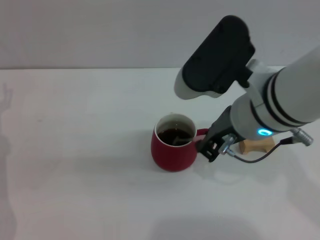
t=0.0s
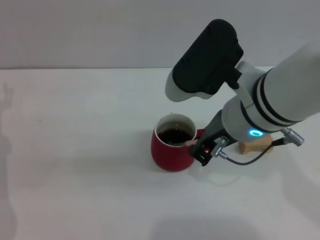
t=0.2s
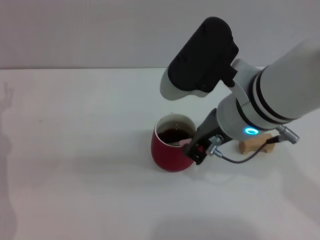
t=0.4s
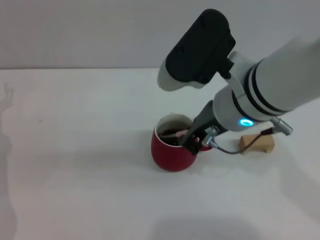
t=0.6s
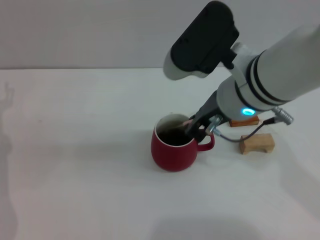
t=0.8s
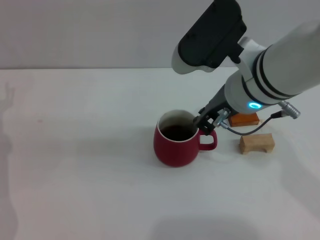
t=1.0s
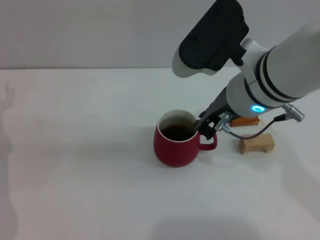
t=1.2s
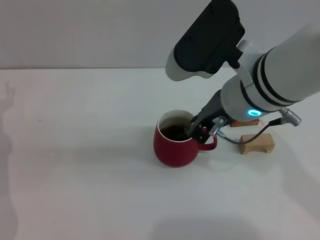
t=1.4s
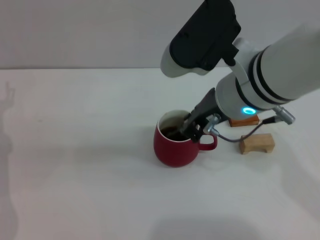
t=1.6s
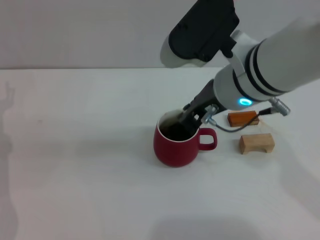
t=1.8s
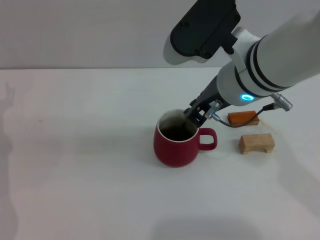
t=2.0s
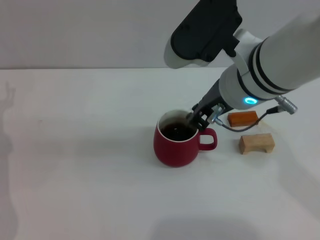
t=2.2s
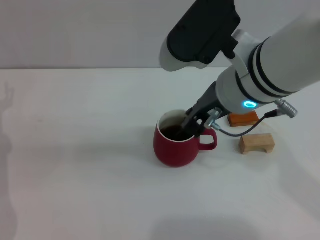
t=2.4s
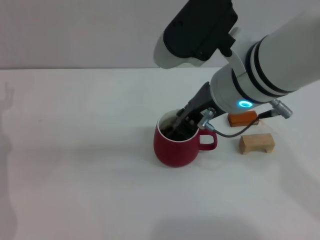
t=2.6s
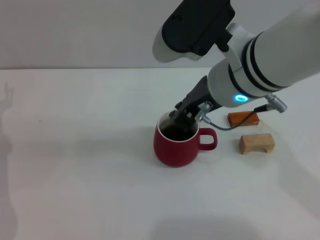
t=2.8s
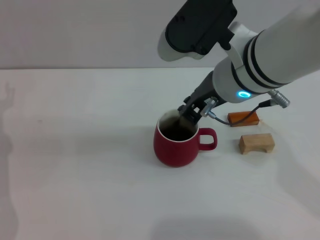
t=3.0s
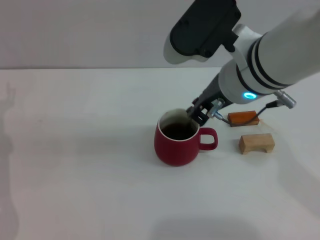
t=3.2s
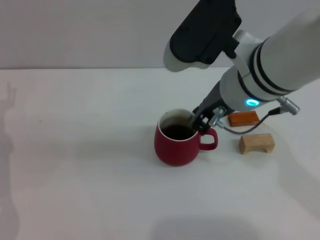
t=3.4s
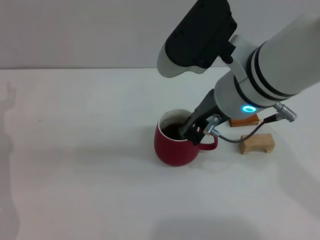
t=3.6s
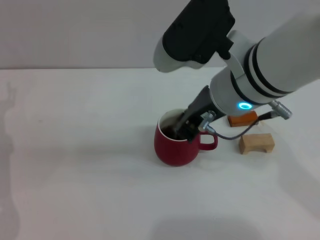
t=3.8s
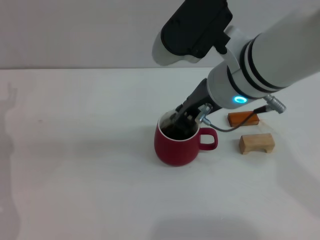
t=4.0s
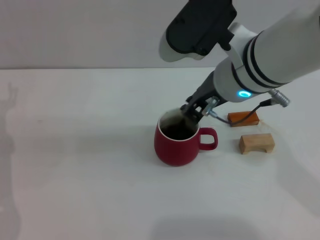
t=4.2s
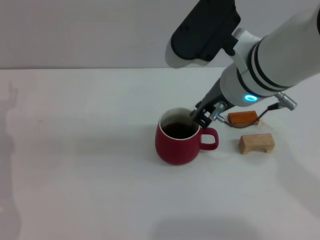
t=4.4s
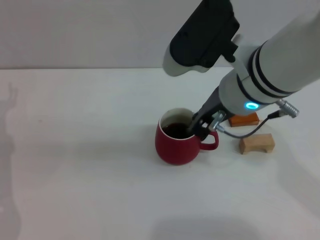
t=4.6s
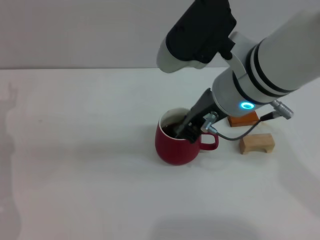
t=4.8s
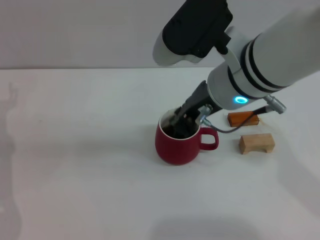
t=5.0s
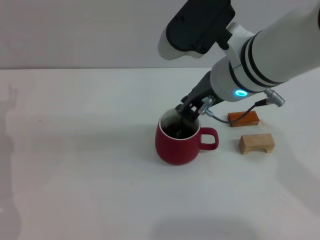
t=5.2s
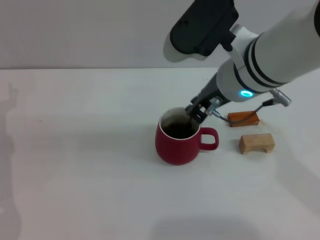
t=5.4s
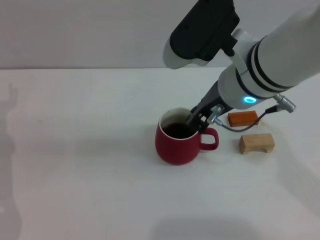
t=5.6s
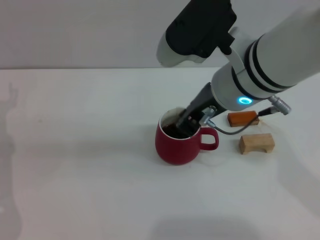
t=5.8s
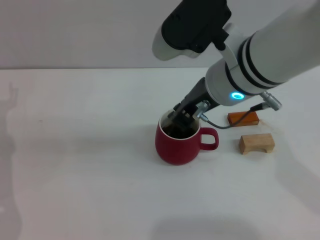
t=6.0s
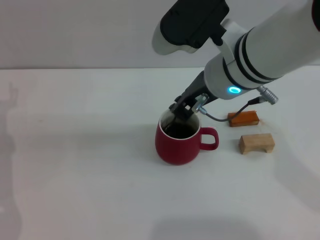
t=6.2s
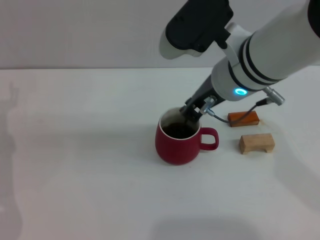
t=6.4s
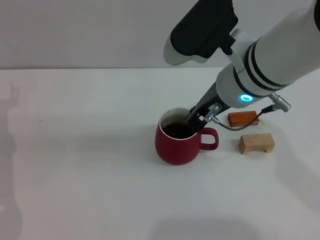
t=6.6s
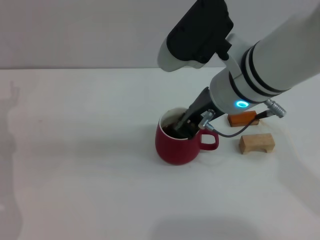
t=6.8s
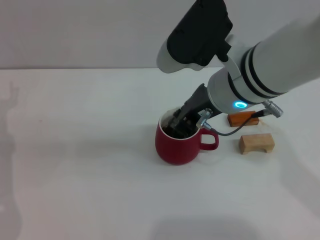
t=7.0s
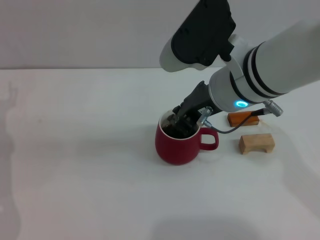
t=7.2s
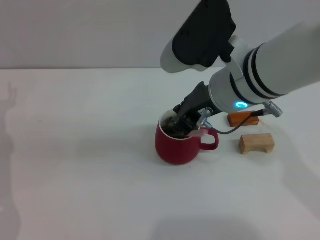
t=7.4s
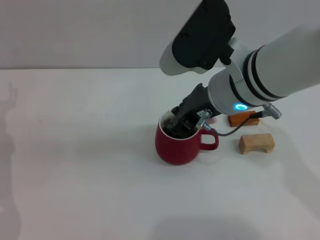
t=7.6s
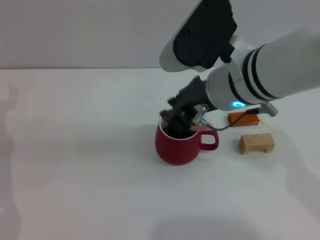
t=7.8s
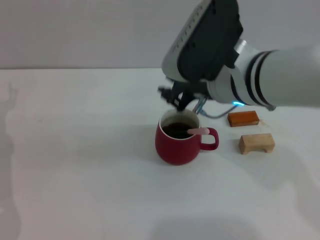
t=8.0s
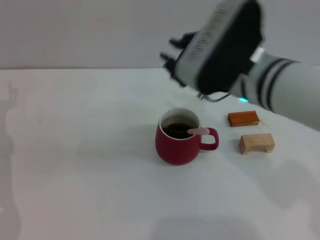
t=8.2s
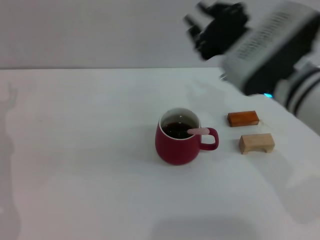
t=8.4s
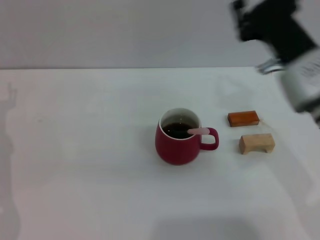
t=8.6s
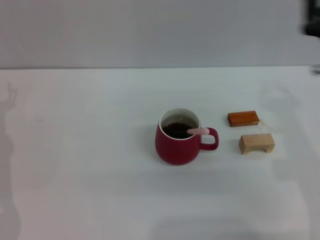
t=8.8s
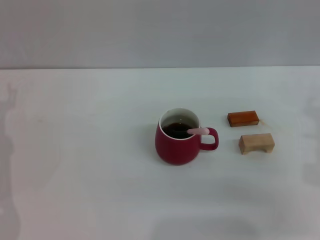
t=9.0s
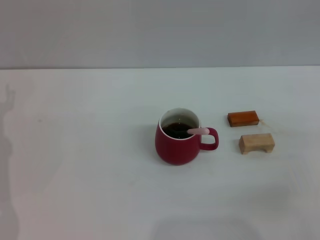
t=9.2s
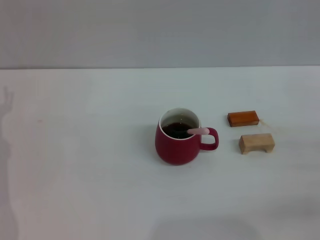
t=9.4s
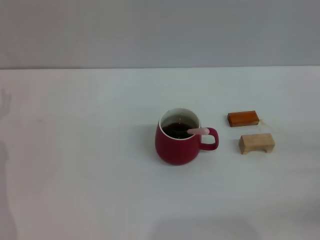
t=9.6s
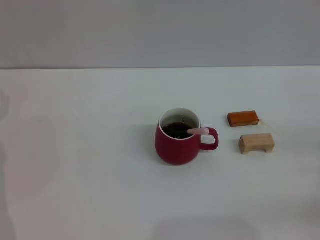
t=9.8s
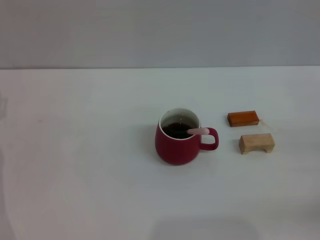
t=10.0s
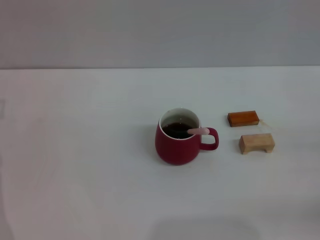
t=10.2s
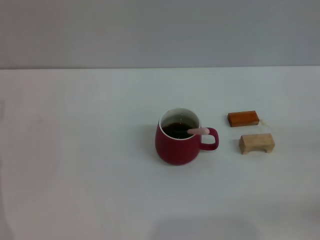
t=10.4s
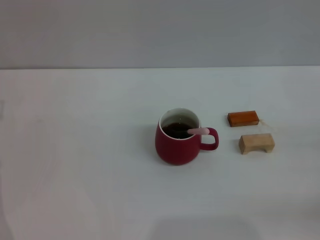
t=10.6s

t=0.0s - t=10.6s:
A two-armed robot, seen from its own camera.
Task of the whole recording: Move the red cup to the center, lift the pink spoon, stir it three times in the cup, and put the spoon into the cup.
Step, t=0.0s - t=8.2s: Stir the coffee in the cup with the right gripper.
t=0.0s - t=7.6s: The grippers make only small movements.
t=7.6s - t=9.0s: The right gripper heads to the right and downward, covering approximately 20 cm.
t=9.0s - t=10.6s: The right gripper goes some 15 cm to the right and downward, and opens.

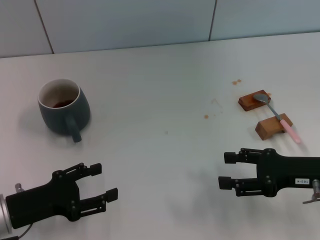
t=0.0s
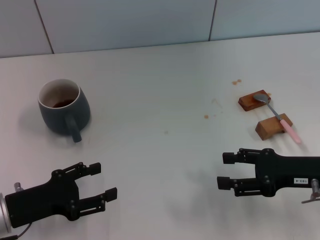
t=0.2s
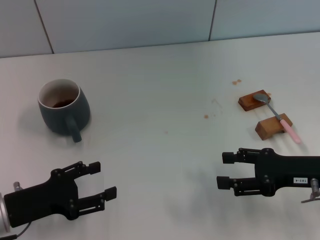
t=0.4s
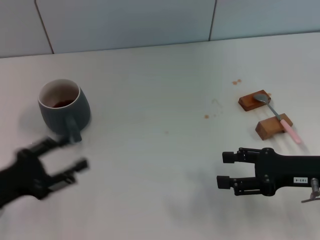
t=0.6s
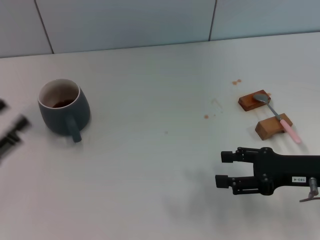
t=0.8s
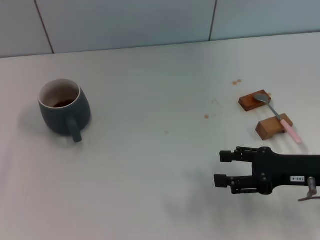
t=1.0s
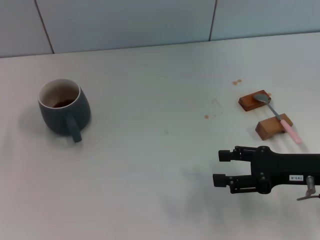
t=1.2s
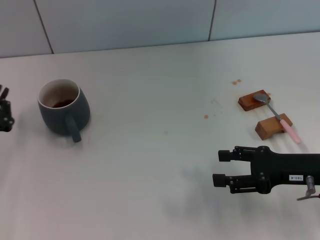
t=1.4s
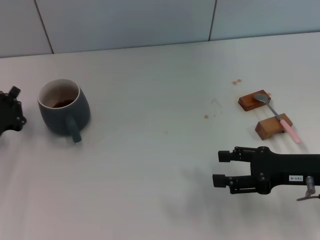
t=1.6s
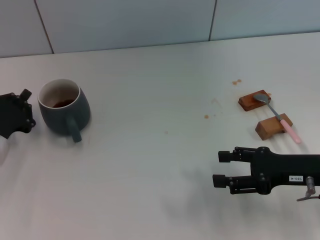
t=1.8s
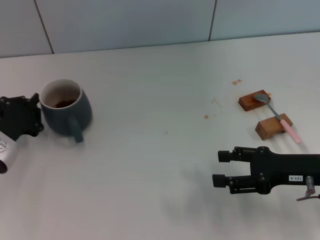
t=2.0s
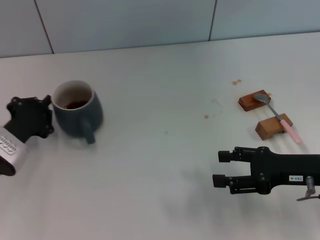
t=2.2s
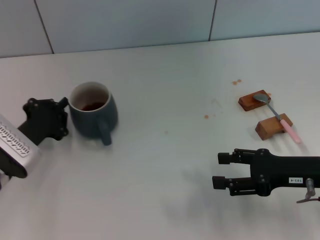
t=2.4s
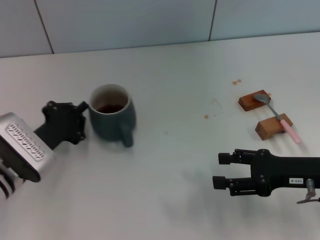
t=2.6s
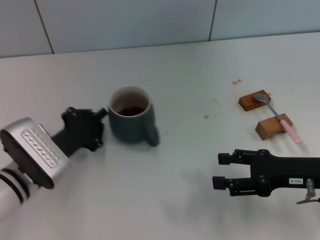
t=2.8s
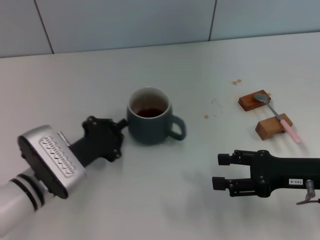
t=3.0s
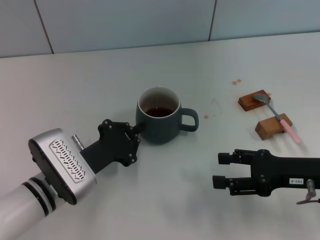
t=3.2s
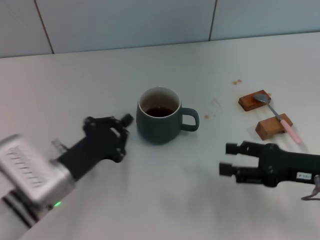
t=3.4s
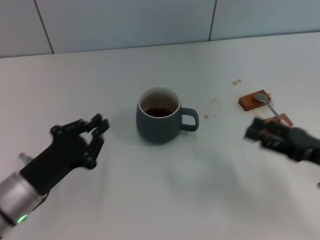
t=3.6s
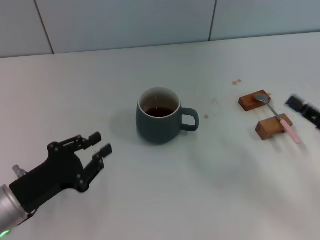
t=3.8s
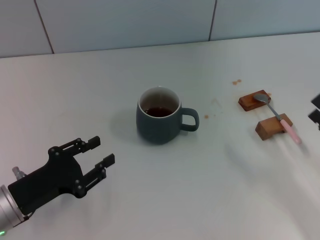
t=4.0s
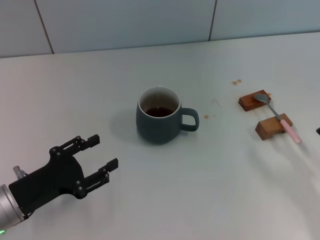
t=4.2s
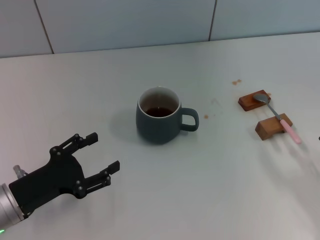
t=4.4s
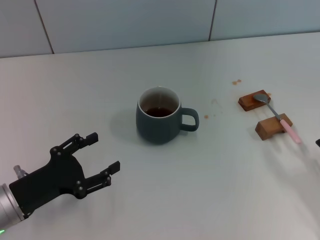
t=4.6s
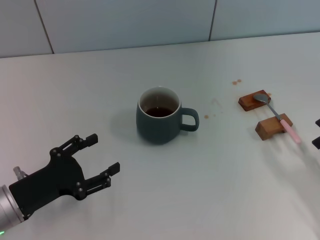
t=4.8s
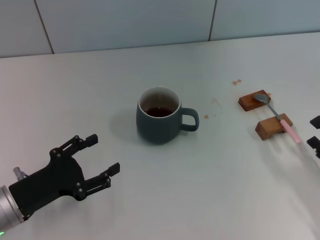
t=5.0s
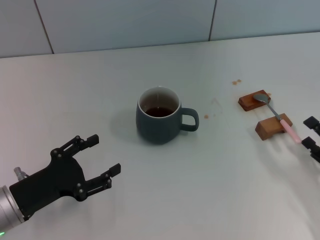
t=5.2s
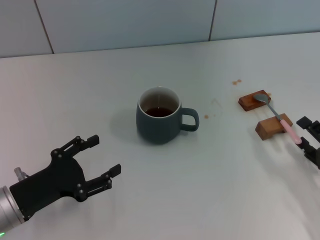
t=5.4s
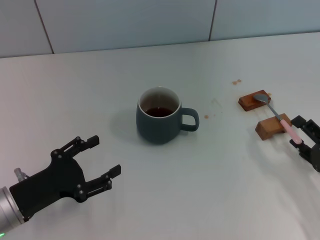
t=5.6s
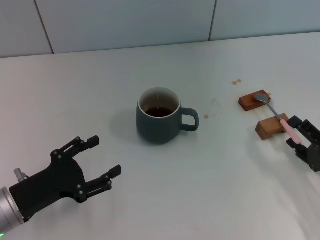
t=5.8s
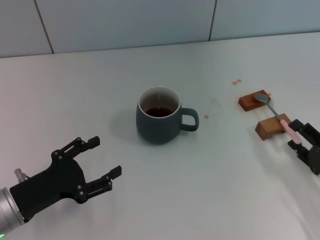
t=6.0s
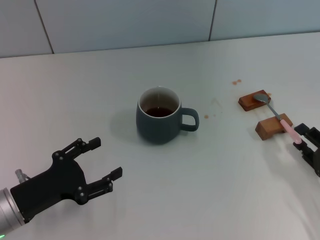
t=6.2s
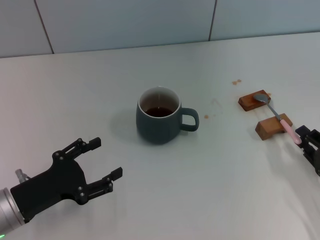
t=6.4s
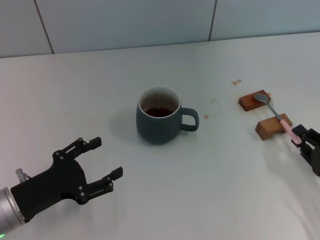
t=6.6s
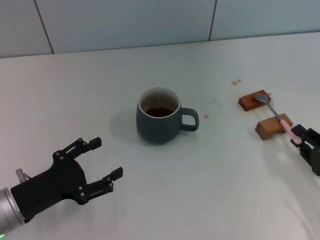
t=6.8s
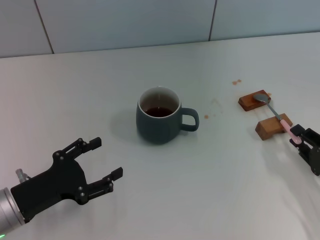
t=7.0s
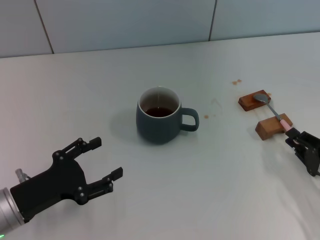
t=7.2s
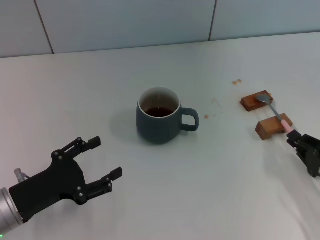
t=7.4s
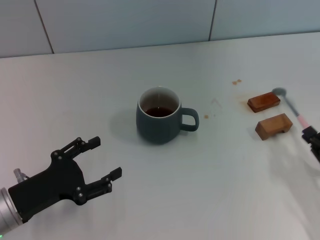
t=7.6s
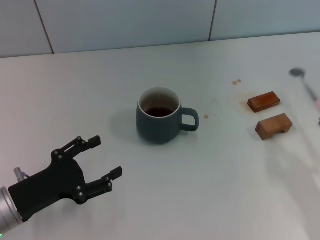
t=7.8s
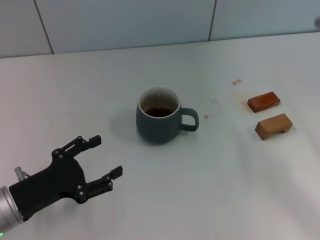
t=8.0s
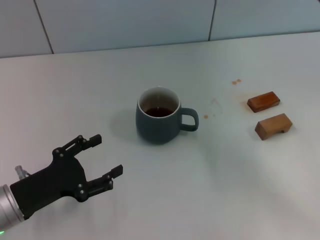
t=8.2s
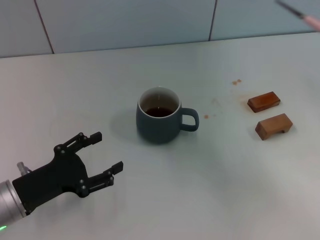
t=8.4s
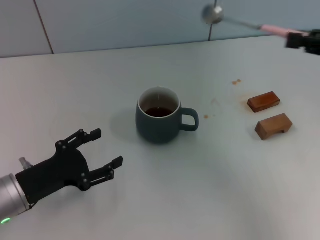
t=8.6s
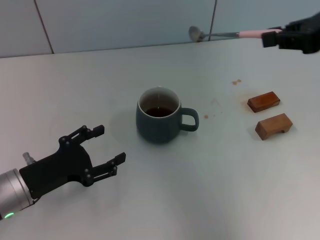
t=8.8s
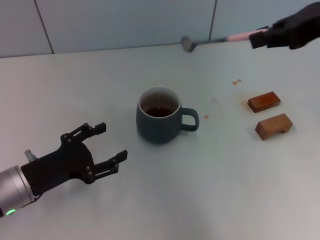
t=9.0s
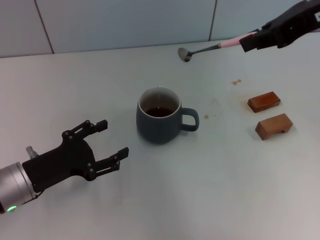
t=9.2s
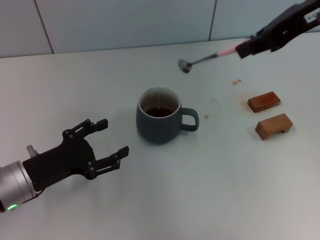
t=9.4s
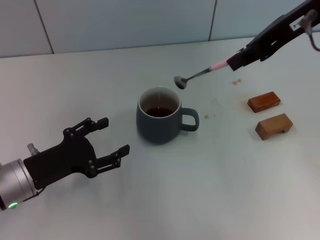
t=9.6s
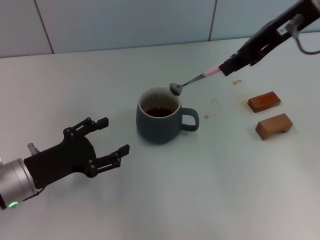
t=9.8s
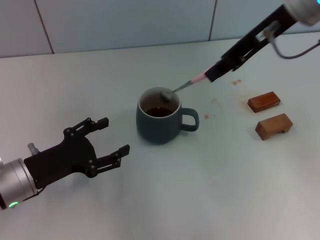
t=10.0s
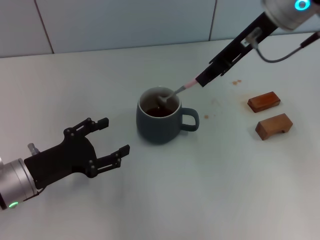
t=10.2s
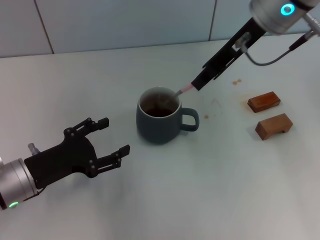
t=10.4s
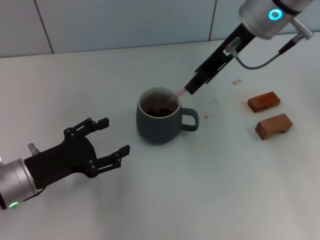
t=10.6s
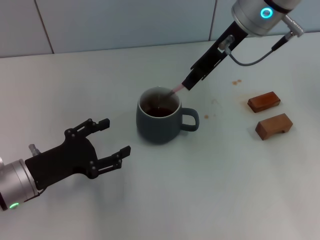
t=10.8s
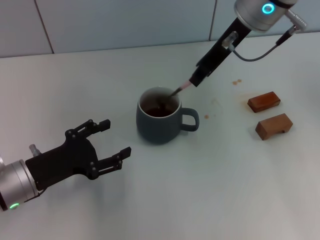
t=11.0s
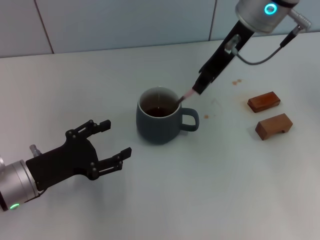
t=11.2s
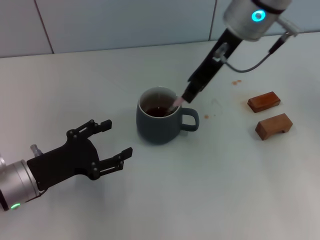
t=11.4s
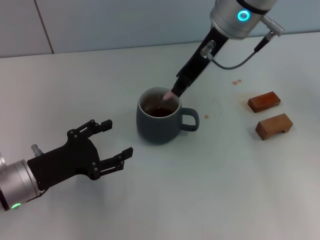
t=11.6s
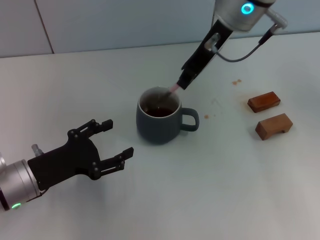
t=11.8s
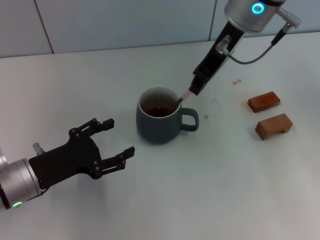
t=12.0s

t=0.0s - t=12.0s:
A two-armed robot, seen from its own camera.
Task of the whole recording: Move the grey cup to the center, lift the pink spoon, stir it three times in the cup, and put the spoon into the cup.
Step, t=0.0s - t=3.6s: Move the cup with coffee to the center of view with the left gripper.
Step, t=3.8s - t=7.6s: Pick up the spoon with the right gripper.
t=0.0s - t=1.6s: The left gripper is displaced forward by roughly 5 cm, and closes up.
t=1.6s - t=3.0s: The left gripper goes about 10 cm to the right.
t=3.0s - t=4.4s: The left gripper shifts roughly 10 cm to the left and backward, and opens. The right gripper is displaced backward and to the right by some 10 cm.
t=4.4s - t=6.0s: The grippers make only small movements.
t=6.0s - t=7.6s: The right gripper closes its fingers.
t=7.6s - t=9.0s: The right gripper goes some 35 cm upward and forward.
t=9.0s - t=10.4s: The right gripper shifts roughly 15 cm to the left and forward.
t=10.4s - t=12.0s: The grippers move only a little.
